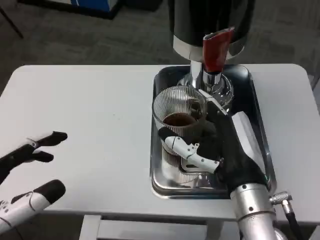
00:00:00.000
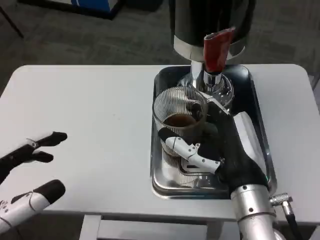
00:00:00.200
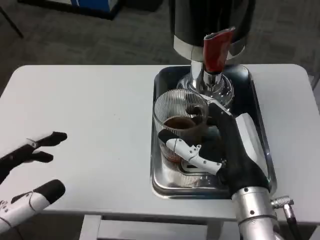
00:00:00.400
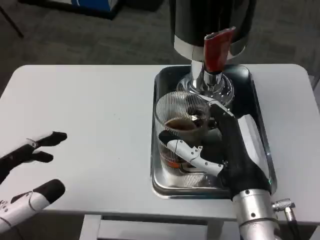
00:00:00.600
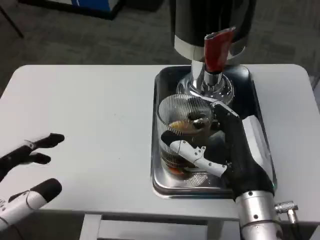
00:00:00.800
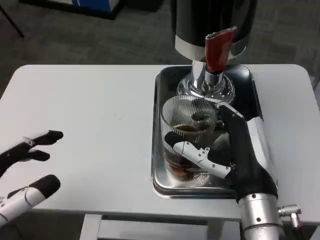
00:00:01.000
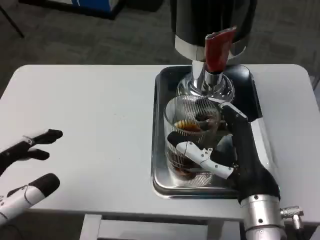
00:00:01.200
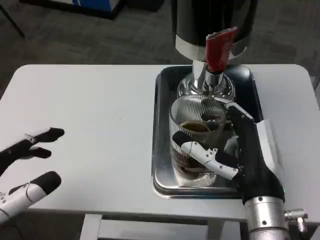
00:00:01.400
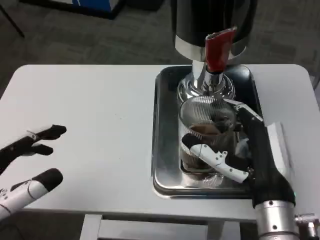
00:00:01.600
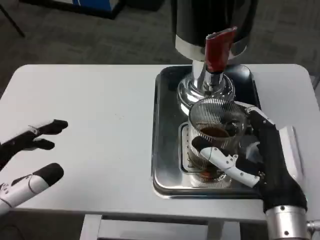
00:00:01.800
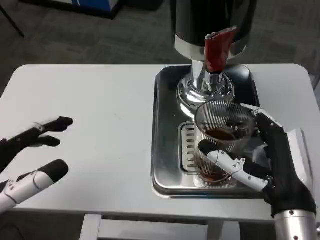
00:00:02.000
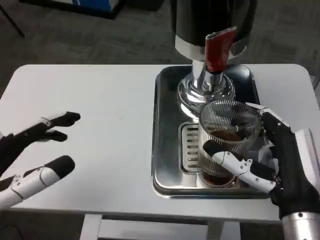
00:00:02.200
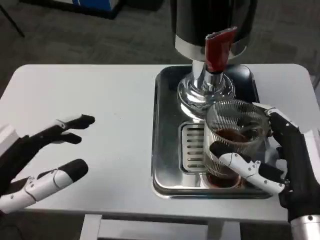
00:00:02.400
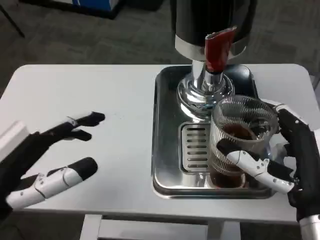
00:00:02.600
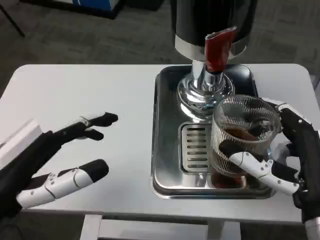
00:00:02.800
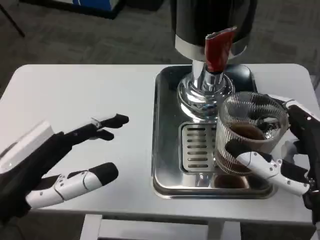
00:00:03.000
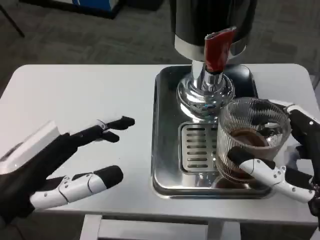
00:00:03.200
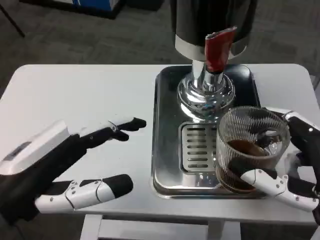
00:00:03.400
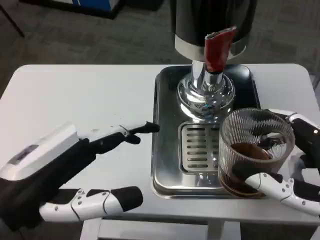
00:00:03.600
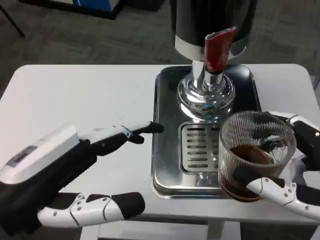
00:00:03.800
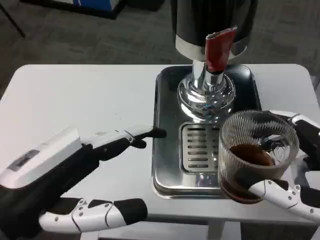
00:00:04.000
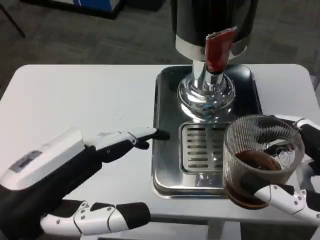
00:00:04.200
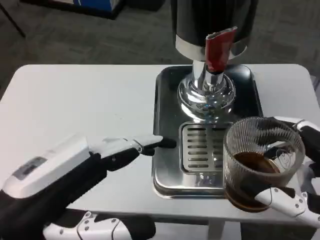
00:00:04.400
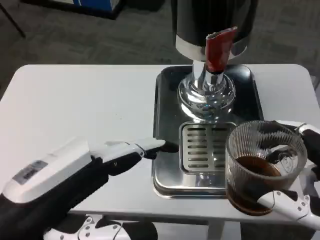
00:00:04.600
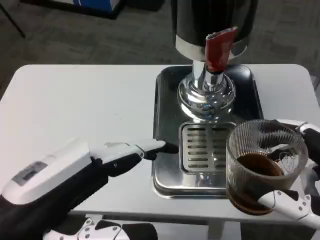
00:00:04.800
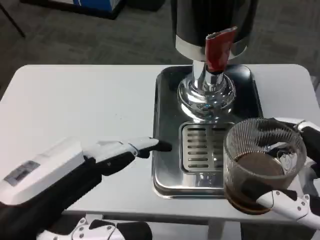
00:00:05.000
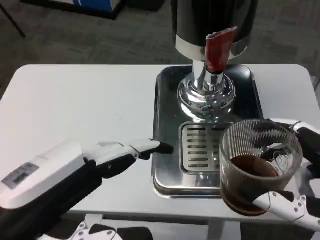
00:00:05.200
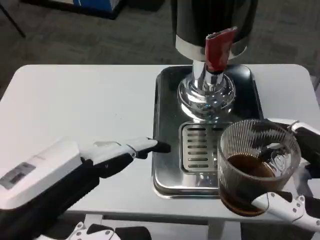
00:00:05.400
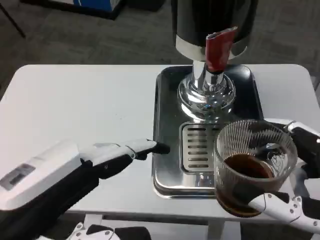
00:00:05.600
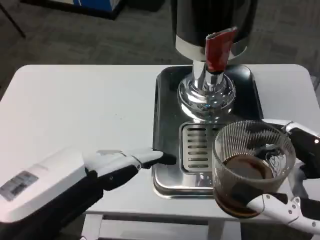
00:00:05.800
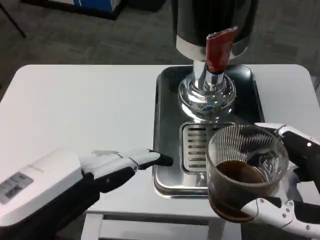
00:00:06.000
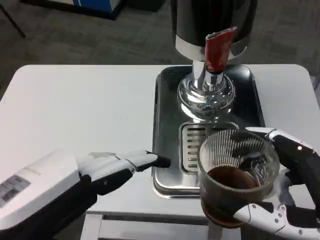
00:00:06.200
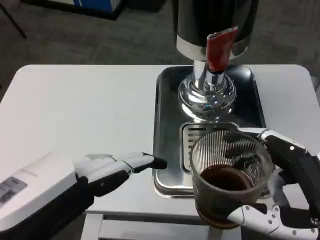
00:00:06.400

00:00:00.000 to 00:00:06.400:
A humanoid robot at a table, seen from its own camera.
Task of the whole recording: Grasp the cup under the faucet to collect the drink, then remove the cup.
00:00:01.600 to 00:00:03.200: The right hand heads to the right and backward, covering about 10 cm. Meanwhile the left hand shifts by about 5 cm.
00:00:03.200 to 00:00:04.800: The right hand shifts by some 5 cm.

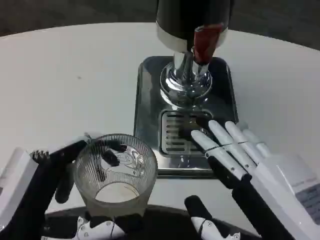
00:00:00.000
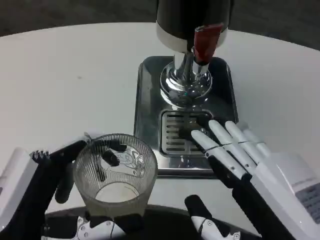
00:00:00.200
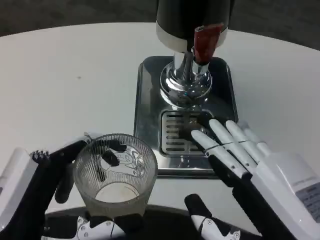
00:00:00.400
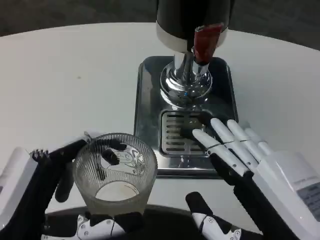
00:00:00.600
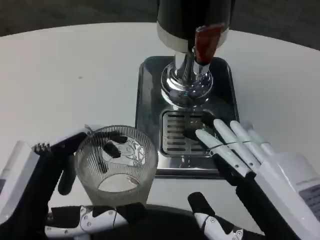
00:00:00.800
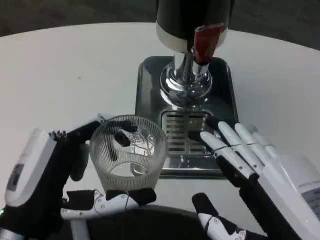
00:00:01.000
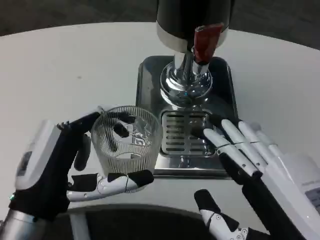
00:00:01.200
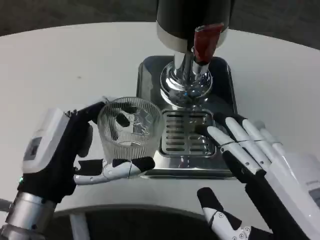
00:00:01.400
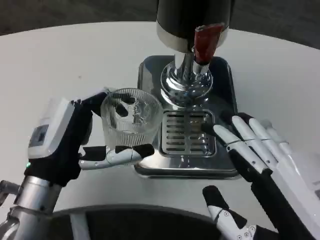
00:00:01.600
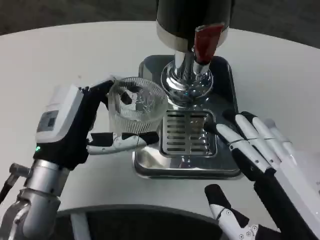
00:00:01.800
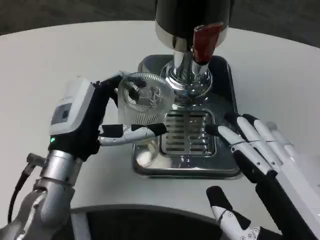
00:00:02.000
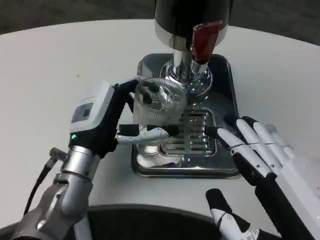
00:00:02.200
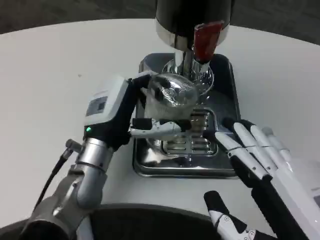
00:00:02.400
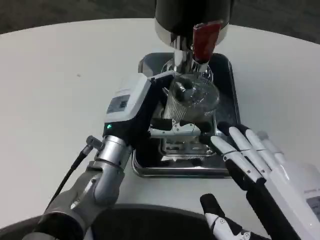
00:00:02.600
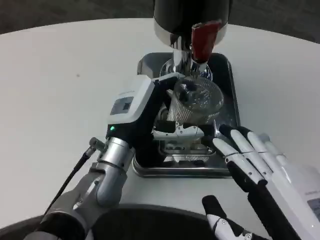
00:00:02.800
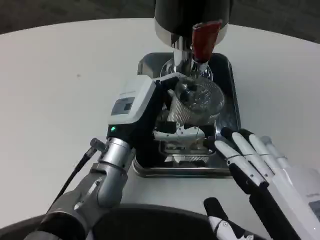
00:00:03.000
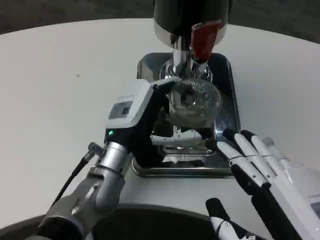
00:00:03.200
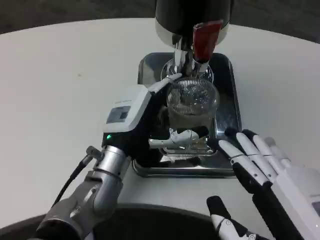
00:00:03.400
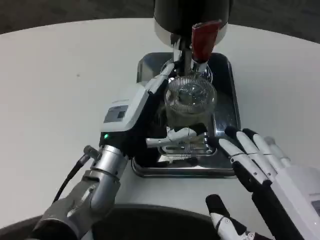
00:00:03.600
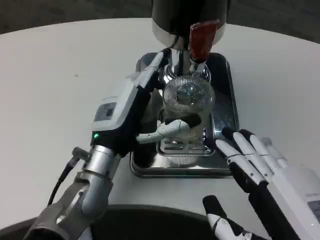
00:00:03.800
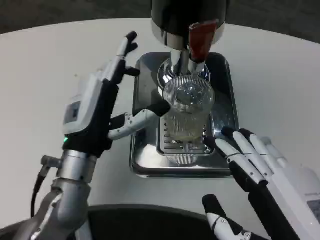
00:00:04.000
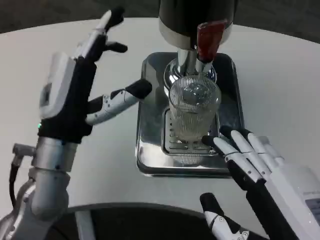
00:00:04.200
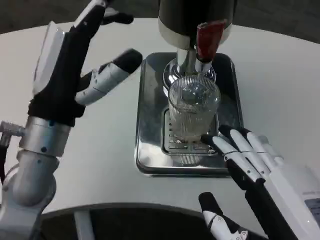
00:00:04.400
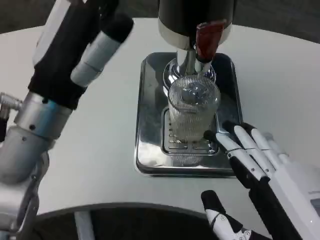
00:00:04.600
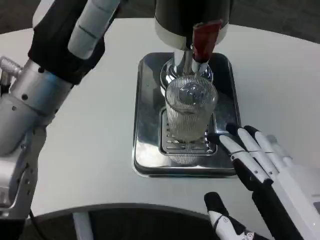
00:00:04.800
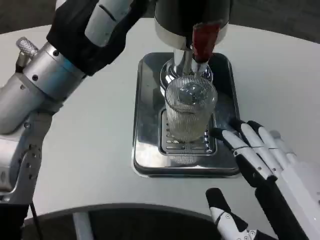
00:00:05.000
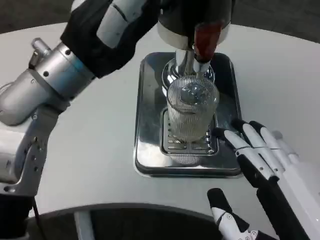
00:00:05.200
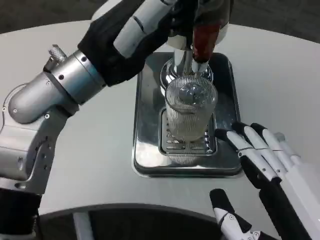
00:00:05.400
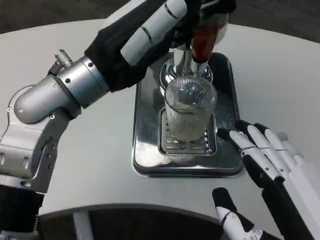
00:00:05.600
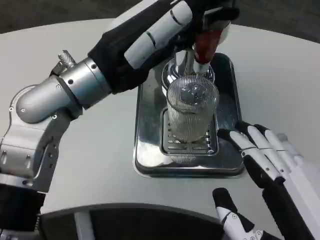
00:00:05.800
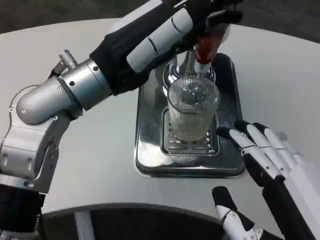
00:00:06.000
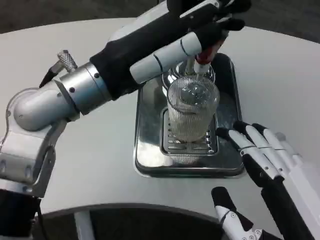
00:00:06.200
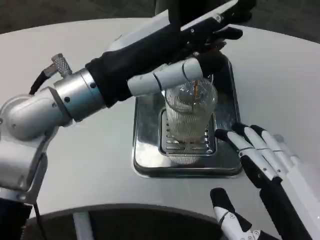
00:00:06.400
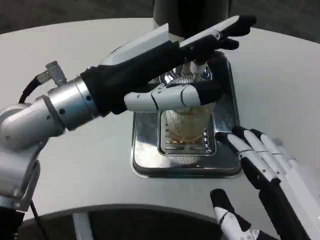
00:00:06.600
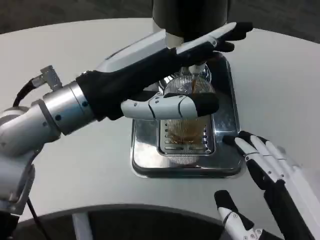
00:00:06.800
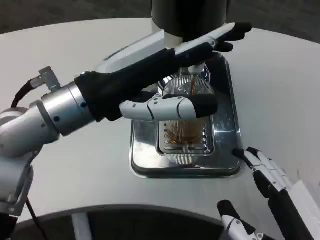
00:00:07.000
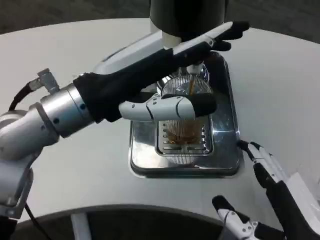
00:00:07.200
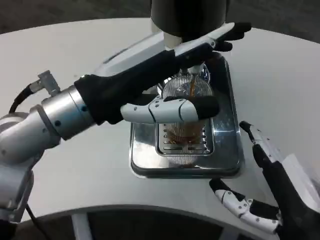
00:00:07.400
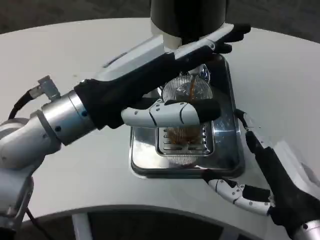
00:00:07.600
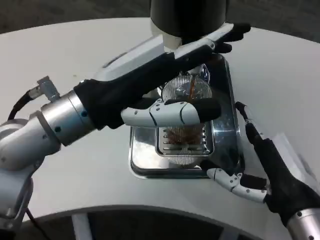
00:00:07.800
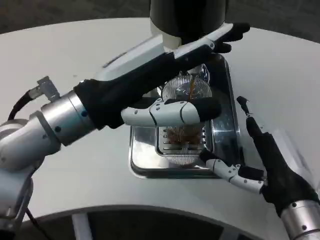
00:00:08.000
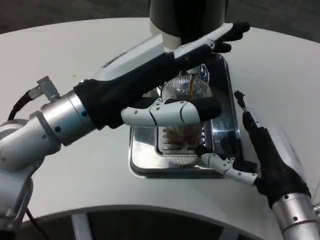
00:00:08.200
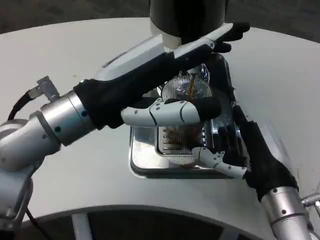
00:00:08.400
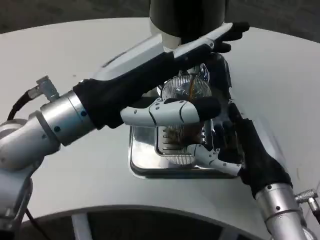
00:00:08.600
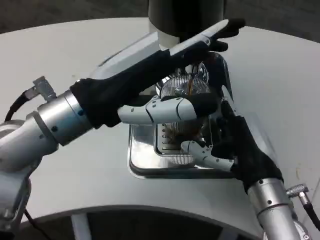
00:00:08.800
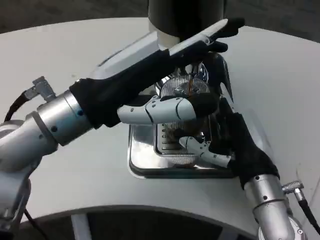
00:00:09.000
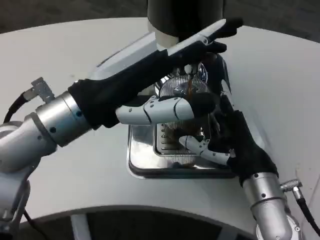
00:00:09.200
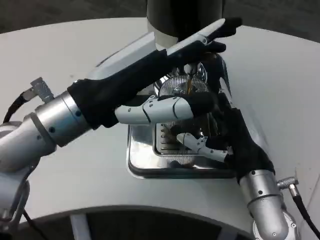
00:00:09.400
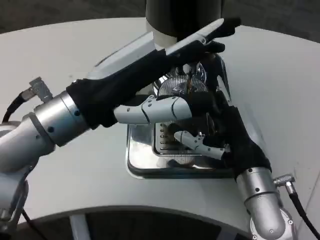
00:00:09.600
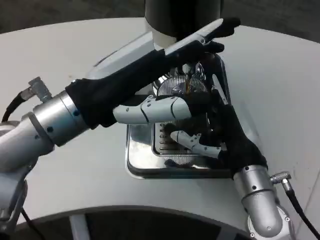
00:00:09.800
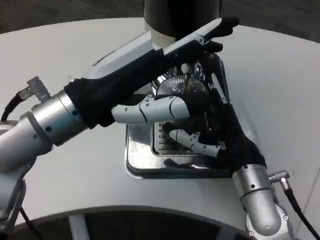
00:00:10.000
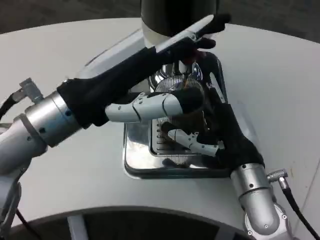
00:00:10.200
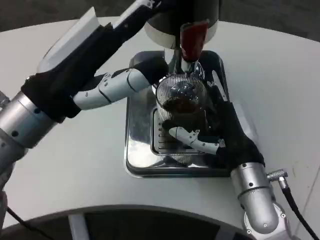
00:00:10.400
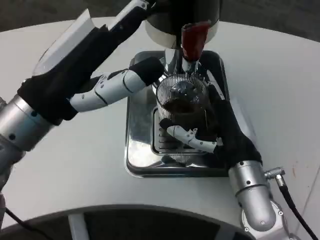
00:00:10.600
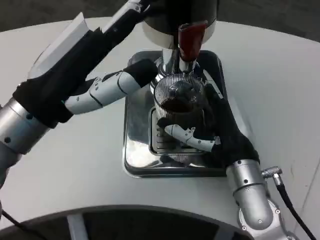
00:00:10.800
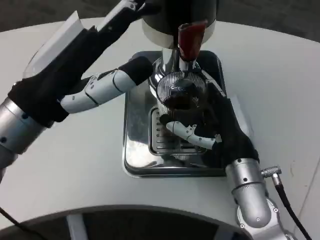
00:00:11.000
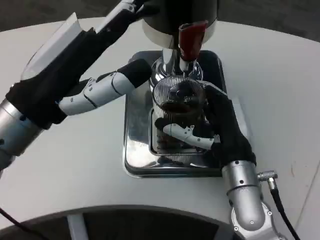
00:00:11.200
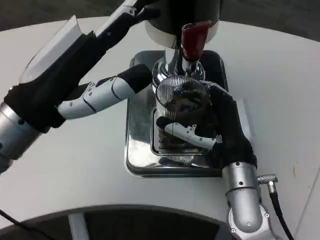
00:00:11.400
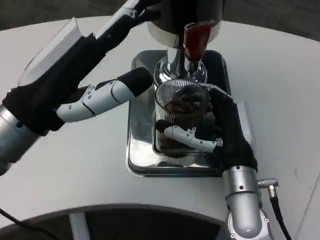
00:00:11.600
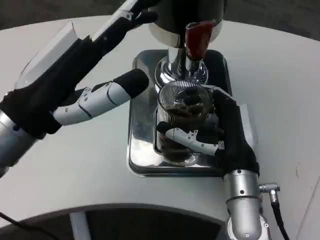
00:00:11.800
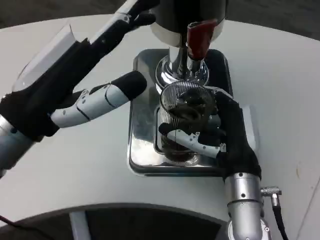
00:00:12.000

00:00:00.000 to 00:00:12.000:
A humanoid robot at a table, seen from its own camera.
Task of the whole recording: Grasp the cup under the faucet to collect the drink, then remove the cup.
00:00:00.000 to 00:00:01.600: The left hand moves forward, some 10 cm.
00:00:01.600 to 00:00:03.000: The left hand goes roughly 10 cm to the right and forward.
00:00:03.000 to 00:00:04.400: The left hand shifts roughly 10 cm upward, to the left and backward.
00:00:04.400 to 00:00:06.000: The left hand is displaced upward by some 10 cm.
00:00:06.000 to 00:00:07.600: The right hand shifts approximately 10 cm forward.
00:00:07.600 to 00:00:09.000: The right hand heads forward, covering roughly 10 cm.

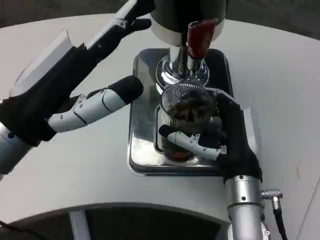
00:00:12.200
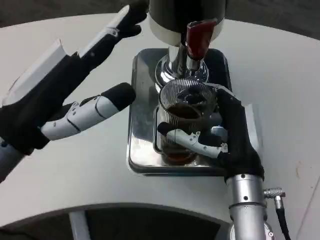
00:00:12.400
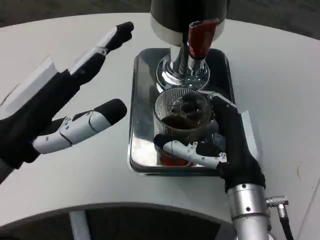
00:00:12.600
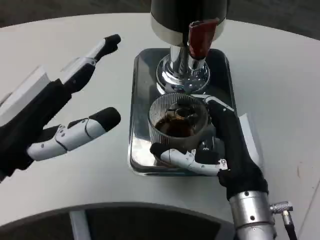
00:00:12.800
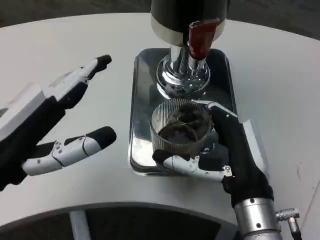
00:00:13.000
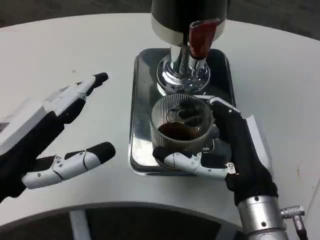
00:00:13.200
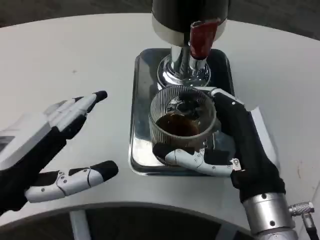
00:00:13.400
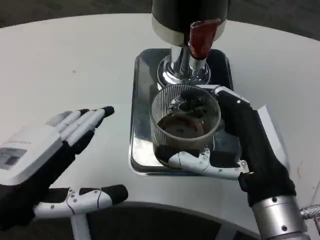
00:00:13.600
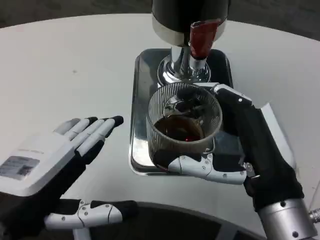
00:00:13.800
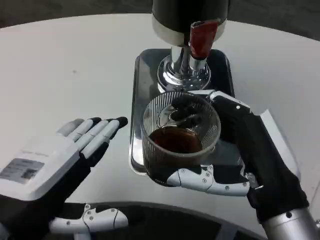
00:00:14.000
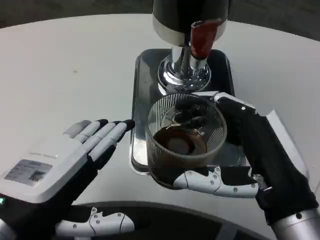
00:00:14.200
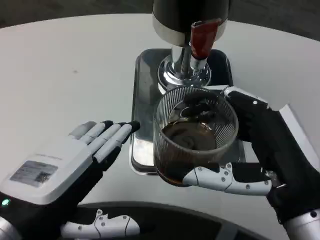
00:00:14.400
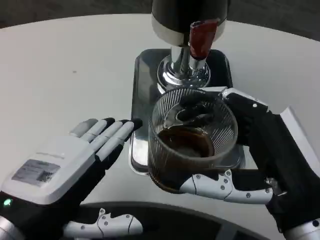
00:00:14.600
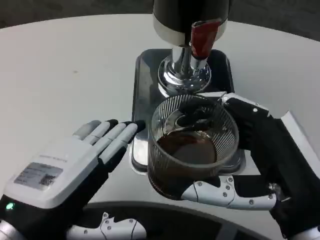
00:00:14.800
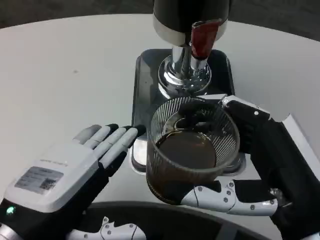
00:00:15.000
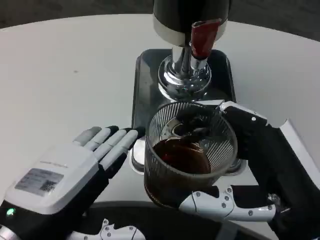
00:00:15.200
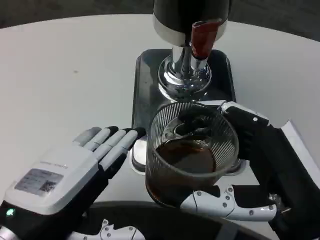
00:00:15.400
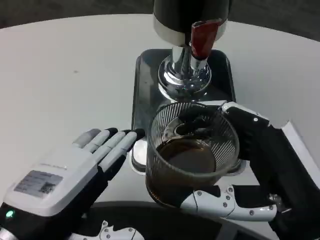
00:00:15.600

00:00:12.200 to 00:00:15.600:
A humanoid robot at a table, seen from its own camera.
Task of the whole recording: Grasp the cup under the faucet to collect the drink, then remove the cup.
00:00:12.200 to 00:00:13.800: The two hands go approximately 10 cm backward.
00:00:13.800 to 00:00:15.600: The right hand travels backward by approximately 5 cm.
